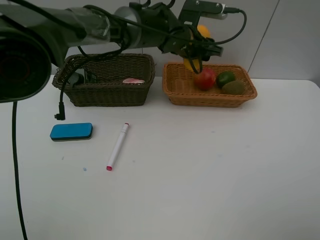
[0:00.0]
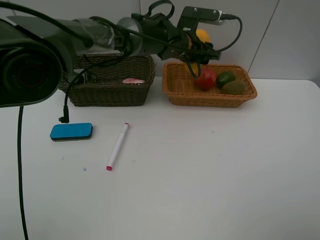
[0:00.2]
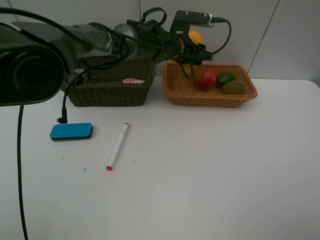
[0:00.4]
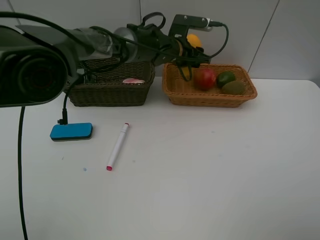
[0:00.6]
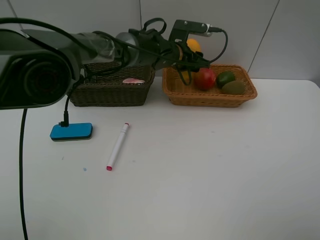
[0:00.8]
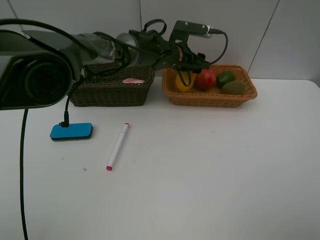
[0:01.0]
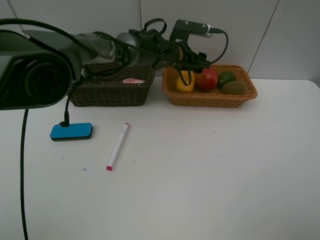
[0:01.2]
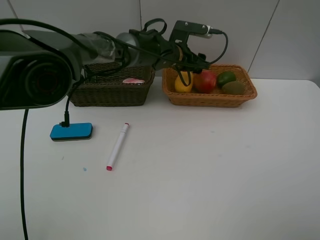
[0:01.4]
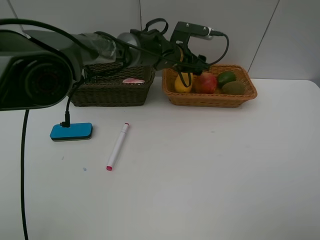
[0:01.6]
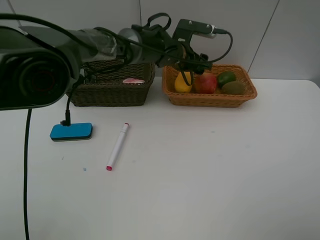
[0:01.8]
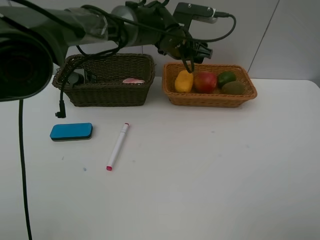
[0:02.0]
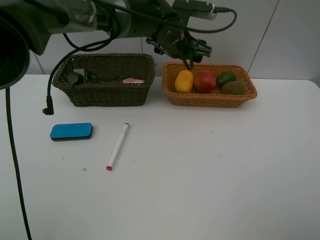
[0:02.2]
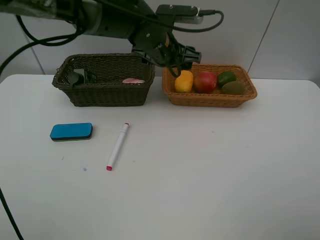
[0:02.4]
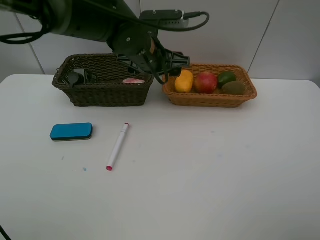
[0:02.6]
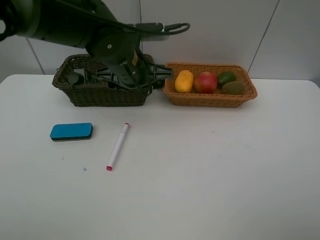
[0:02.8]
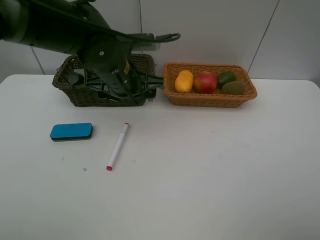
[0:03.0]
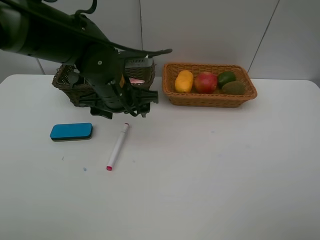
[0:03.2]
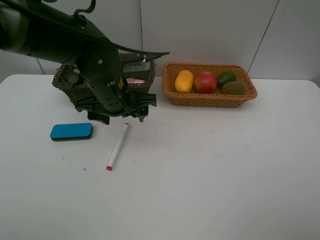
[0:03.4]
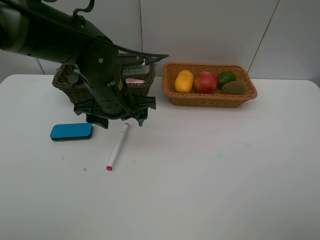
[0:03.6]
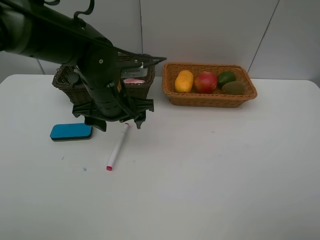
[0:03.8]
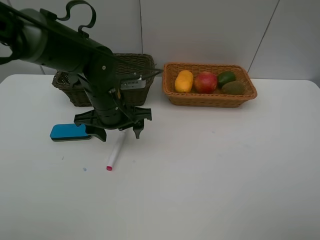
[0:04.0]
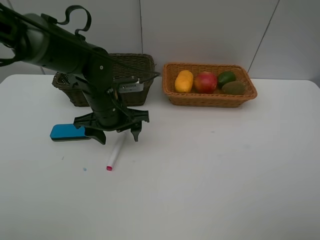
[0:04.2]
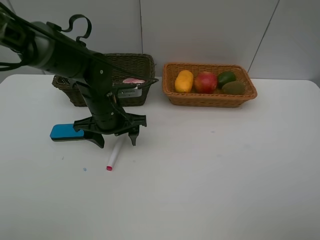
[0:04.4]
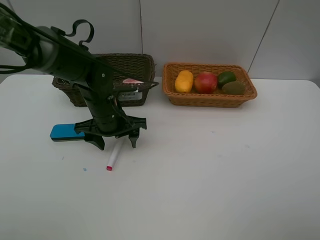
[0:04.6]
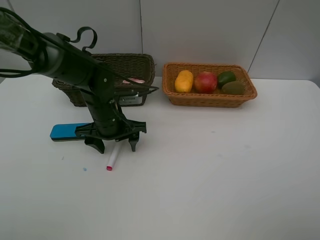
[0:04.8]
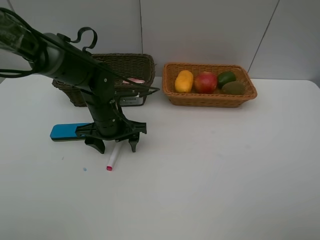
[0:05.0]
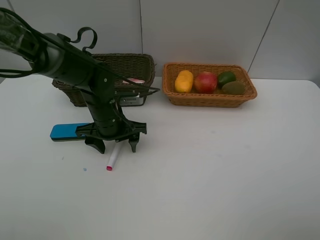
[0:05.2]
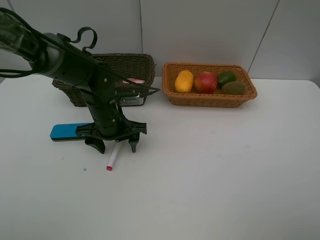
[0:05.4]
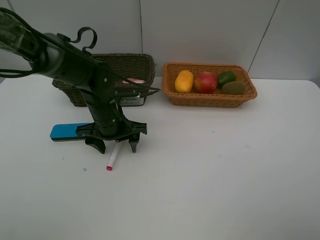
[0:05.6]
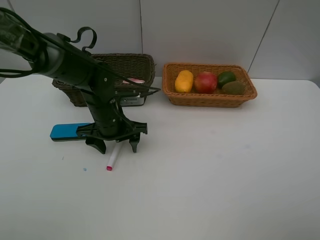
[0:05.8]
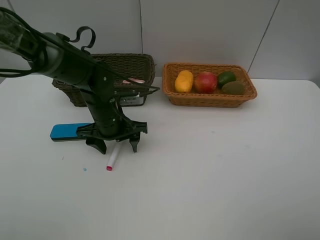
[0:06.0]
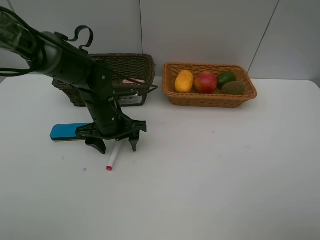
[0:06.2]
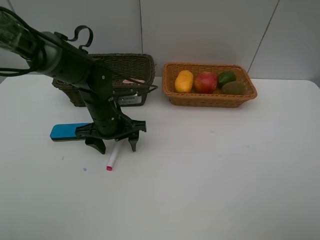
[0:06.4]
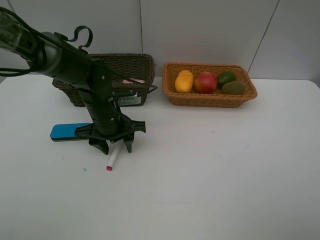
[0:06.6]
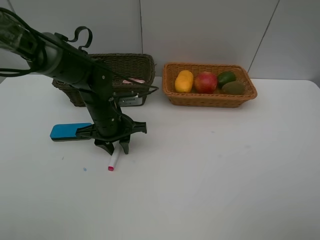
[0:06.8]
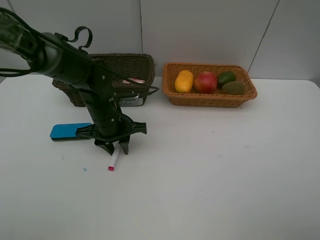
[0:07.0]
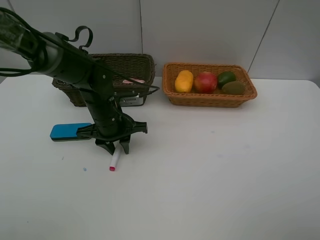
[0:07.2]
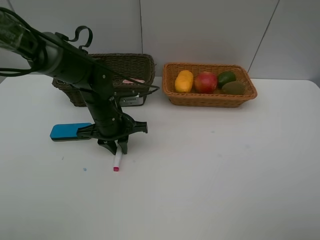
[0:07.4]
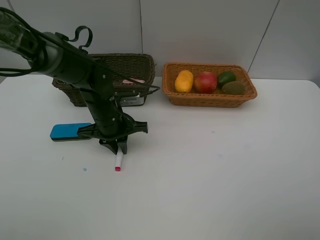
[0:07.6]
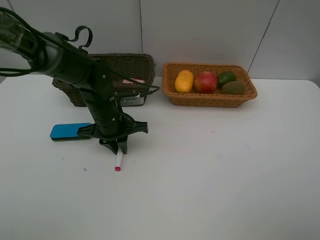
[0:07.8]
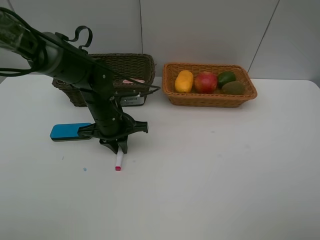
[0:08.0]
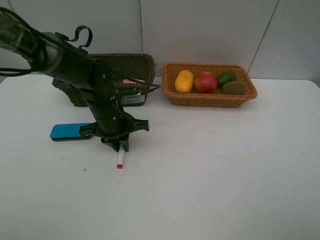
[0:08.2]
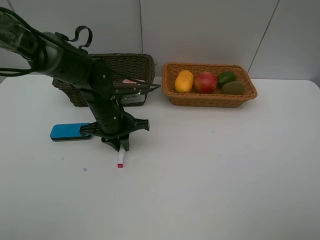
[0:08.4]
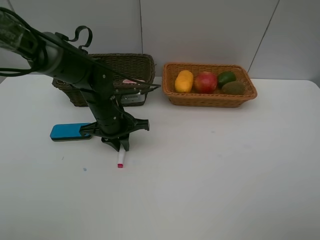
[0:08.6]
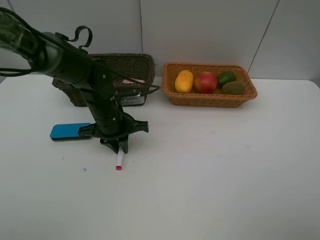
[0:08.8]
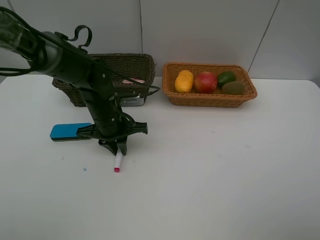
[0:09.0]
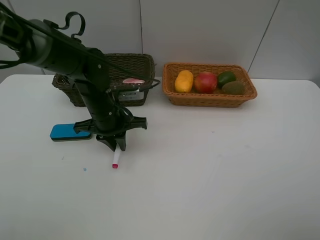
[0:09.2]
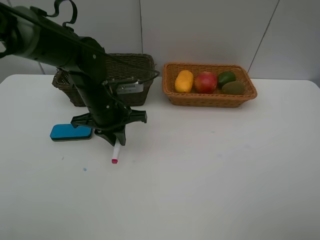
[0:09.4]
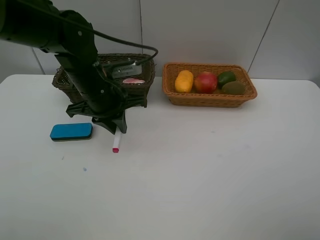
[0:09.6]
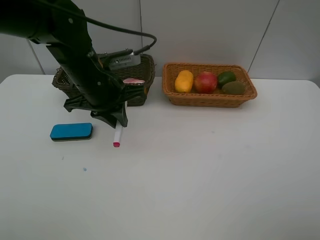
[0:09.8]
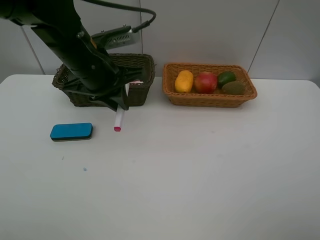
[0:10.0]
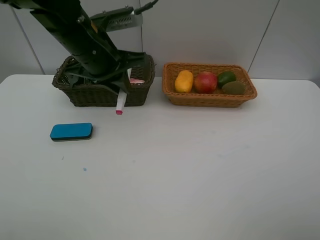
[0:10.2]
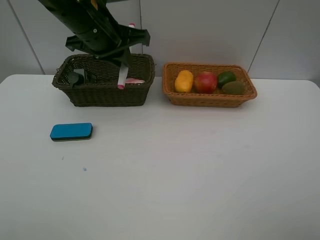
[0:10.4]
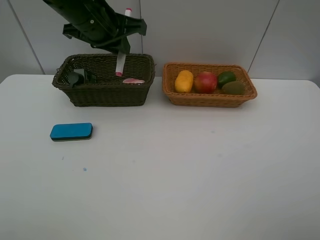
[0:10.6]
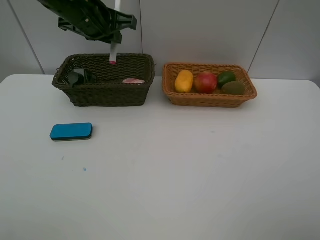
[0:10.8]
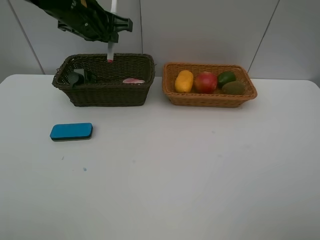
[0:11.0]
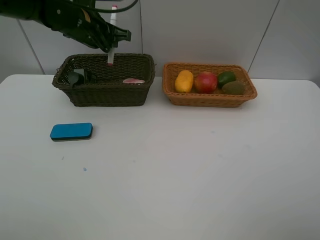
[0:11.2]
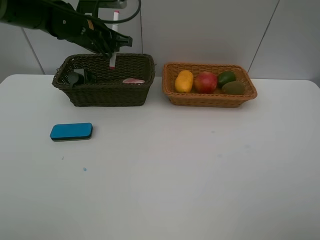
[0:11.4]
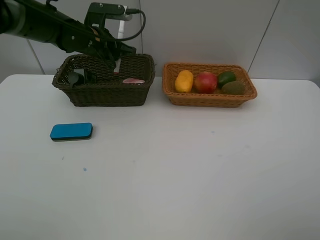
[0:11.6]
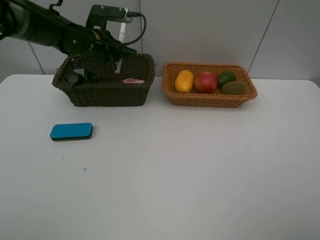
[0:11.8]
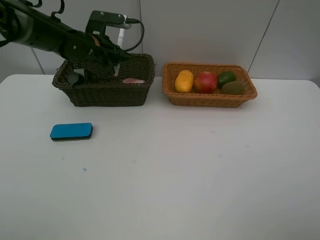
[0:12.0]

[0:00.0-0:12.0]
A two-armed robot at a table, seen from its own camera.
Task of the whole recording: Place multiple objects separately in different baskets.
Step, 0:01.8 to 0:09.4: Pick up the red marker with left gripper.
0:00.0 to 0:01.6: The left gripper heads downward, covering some 5 cm.
0:01.6 to 0:03.0: The left gripper goes roughly 20 cm backward and to the left.
0:03.0 to 0:04.4: The left gripper moves downward, about 10 cm.
0:04.4 to 0:06.0: There are only small adjustments of the grippers.
0:06.0 to 0:07.6: The left gripper closes its fingers.
0:07.6 to 0:09.0: Both grippers stay put.
0:09.0 to 0:10.4: The left gripper shifts approximately 20 cm upward.
0:10.4 to 0:12.0: The left gripper is displaced forward and downward by about 15 cm.

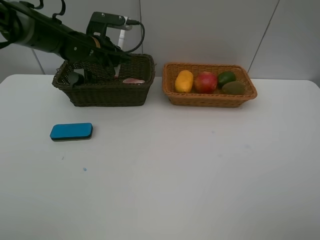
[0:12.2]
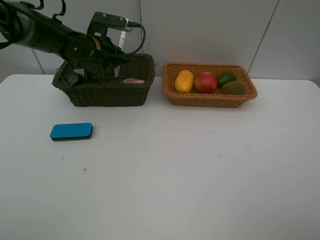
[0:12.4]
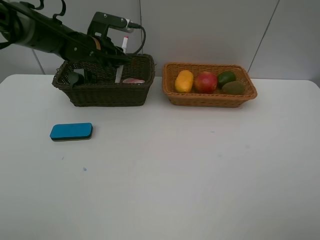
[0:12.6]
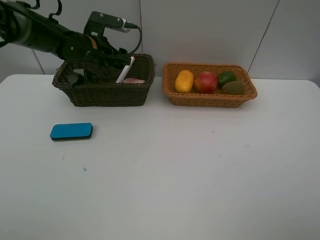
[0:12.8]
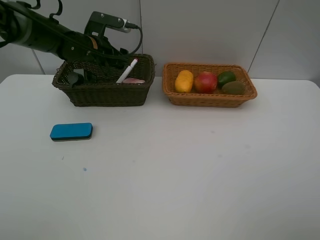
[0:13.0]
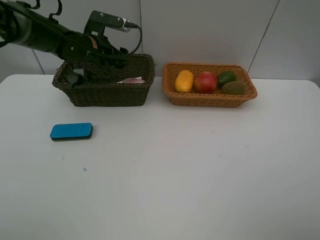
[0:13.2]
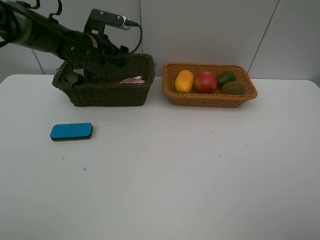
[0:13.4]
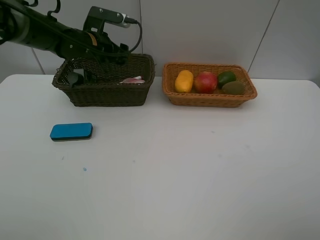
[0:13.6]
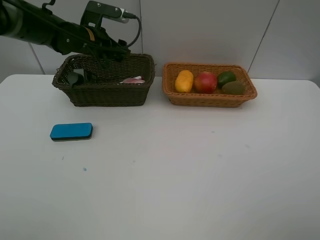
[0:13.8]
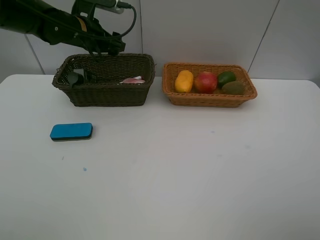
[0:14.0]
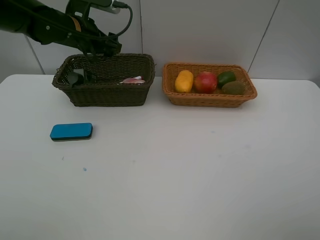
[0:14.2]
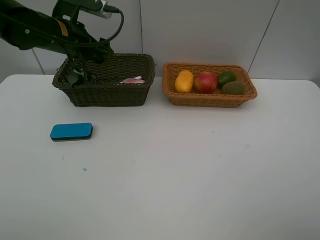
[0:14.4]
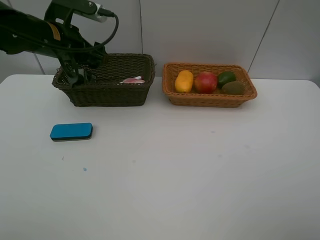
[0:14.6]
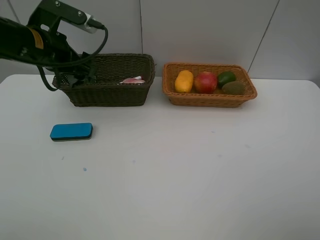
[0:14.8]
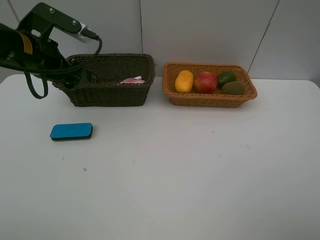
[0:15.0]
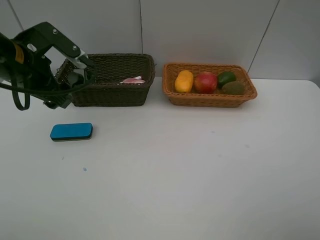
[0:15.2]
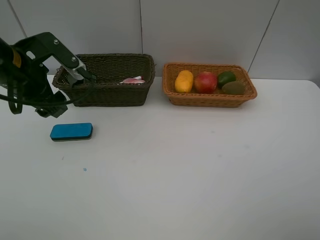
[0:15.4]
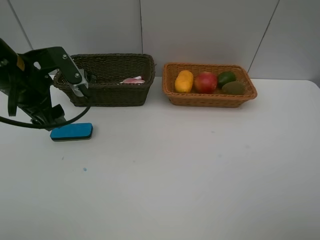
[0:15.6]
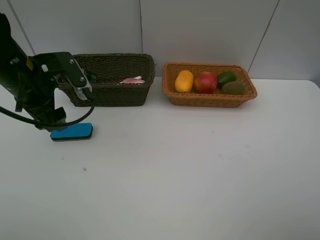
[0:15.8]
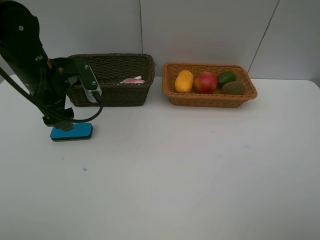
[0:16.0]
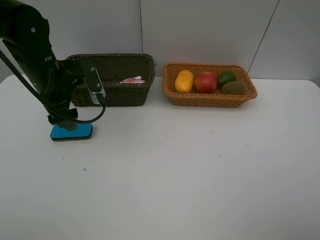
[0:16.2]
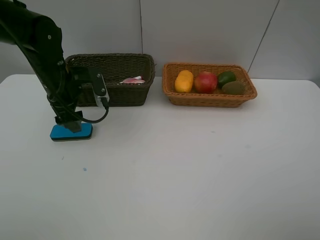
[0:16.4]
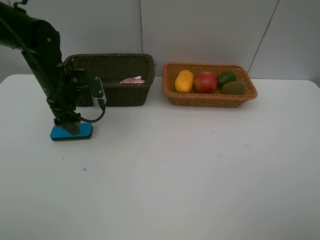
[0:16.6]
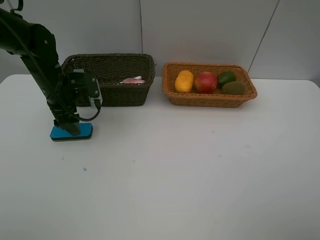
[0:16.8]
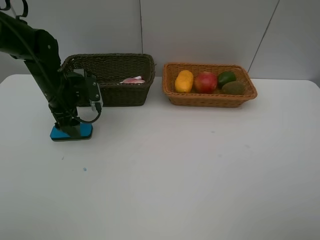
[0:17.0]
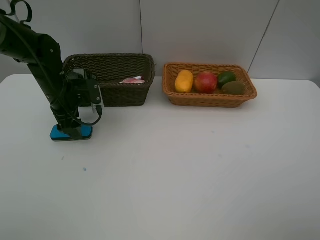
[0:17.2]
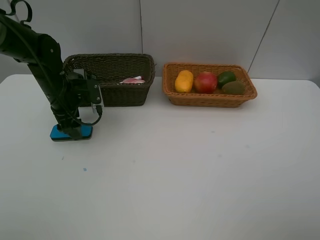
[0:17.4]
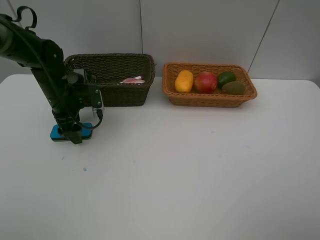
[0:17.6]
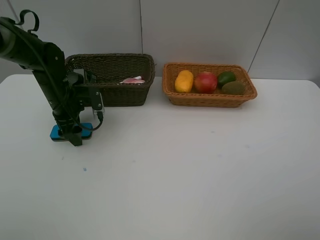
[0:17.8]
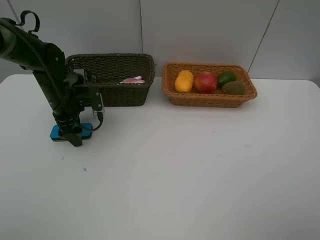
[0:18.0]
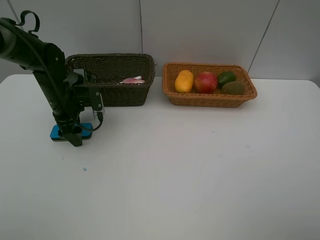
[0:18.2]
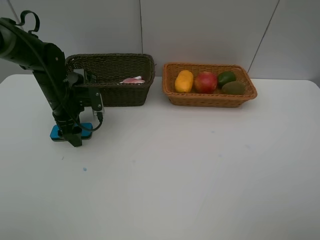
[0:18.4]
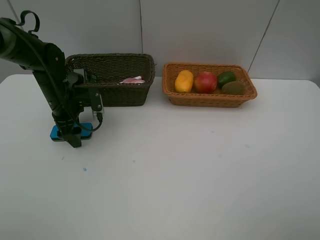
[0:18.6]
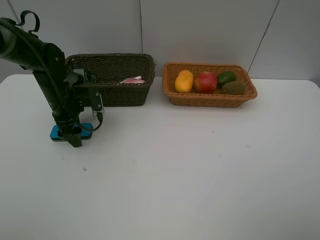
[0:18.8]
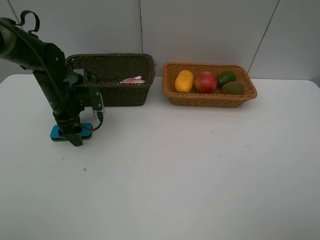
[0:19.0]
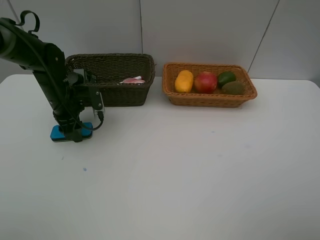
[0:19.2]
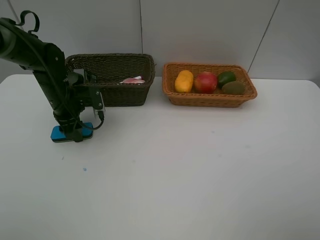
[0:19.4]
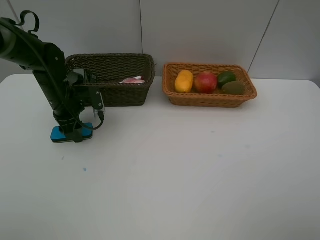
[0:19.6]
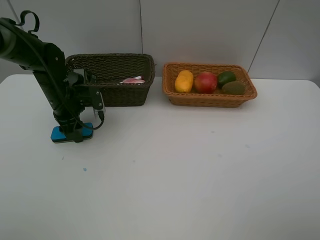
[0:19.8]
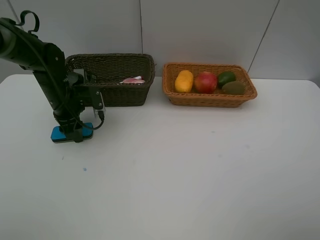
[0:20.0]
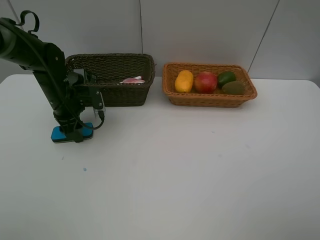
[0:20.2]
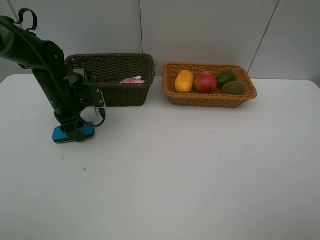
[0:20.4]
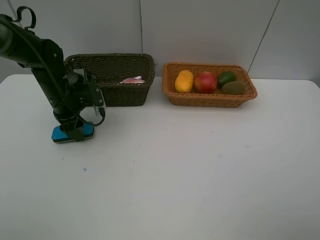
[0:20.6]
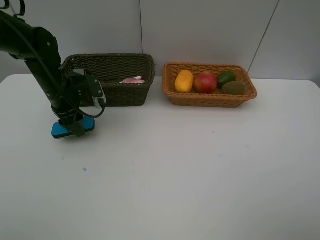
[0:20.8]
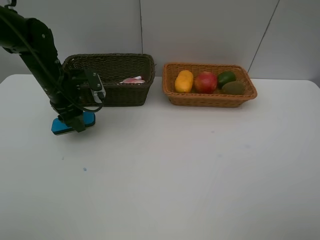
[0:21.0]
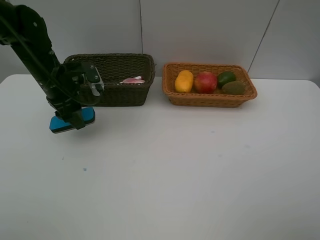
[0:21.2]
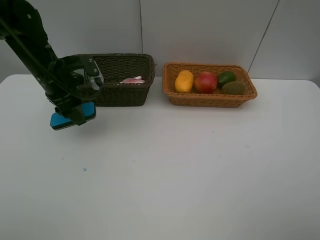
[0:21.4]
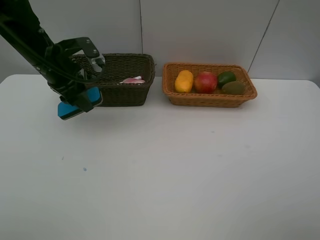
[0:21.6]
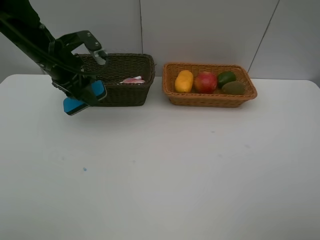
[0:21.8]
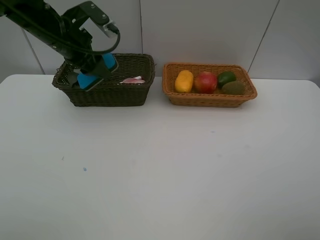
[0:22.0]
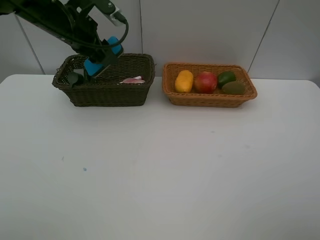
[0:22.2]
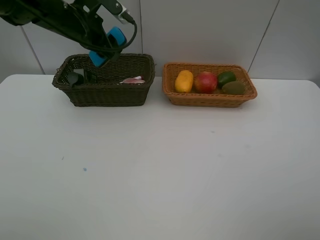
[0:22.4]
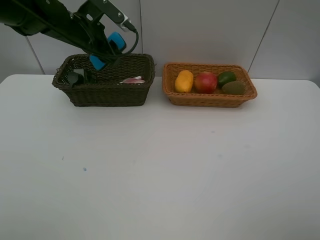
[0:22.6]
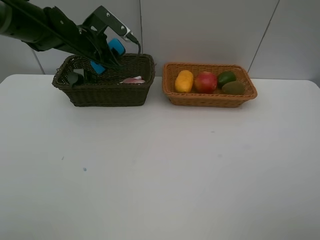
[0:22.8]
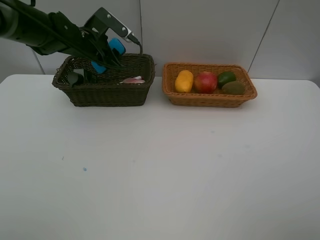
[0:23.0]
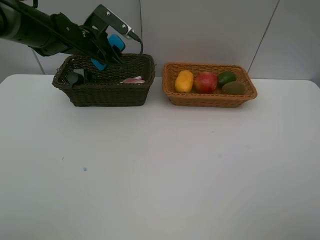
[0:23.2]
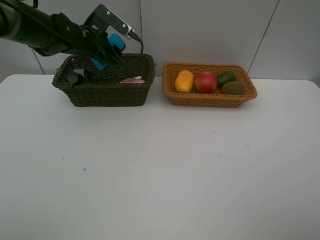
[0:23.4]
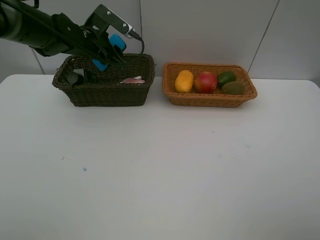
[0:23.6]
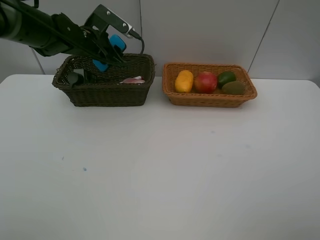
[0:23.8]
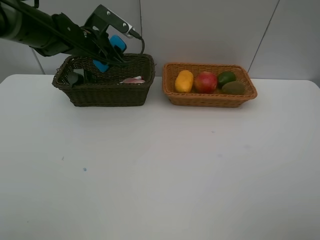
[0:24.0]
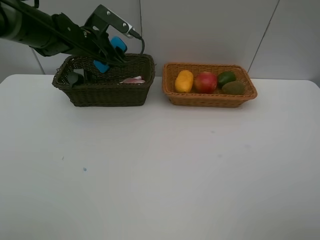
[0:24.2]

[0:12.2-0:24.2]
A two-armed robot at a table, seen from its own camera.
Task of the whole recording: Place multiple objects separately in different baskets.
Step, 0:13.4 to 0:20.8: Pick up blackboard eraser with left gripper.
0:12.2 to 0:13.8: The left gripper opens up.
0:13.8 to 0:15.2: The left gripper is displaced backward by some 15 cm.
0:15.2 to 0:16.6: The left gripper is displaced downward and forward by some 10 cm.
0:16.6 to 0:18.2: The left gripper heads downward, covering approximately 5 cm.
0:19.8 to 0:21.2: The left gripper travels upward by roughly 5 cm.
0:21.2 to 0:22.6: The left gripper heads forward and upward, covering about 10 cm.
0:22.6 to 0:24.2: The grippers make only small movements.
